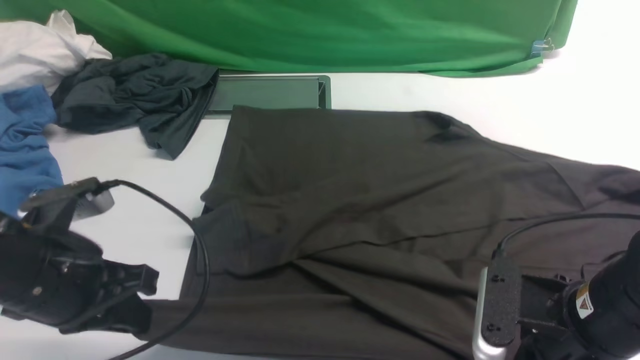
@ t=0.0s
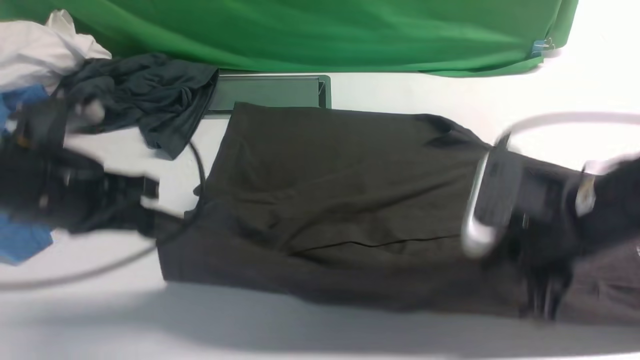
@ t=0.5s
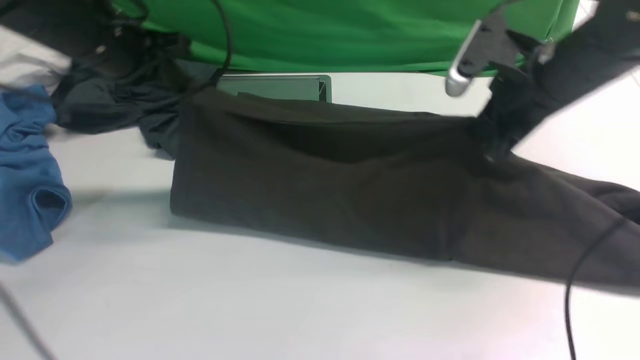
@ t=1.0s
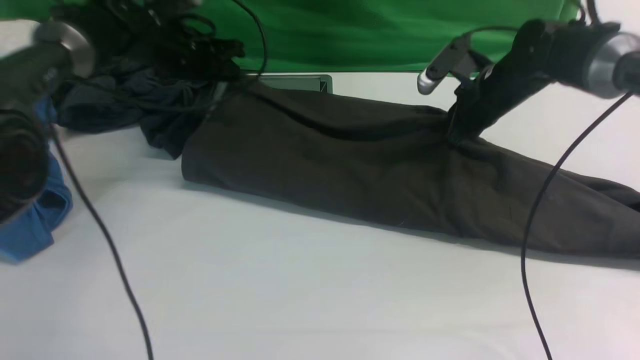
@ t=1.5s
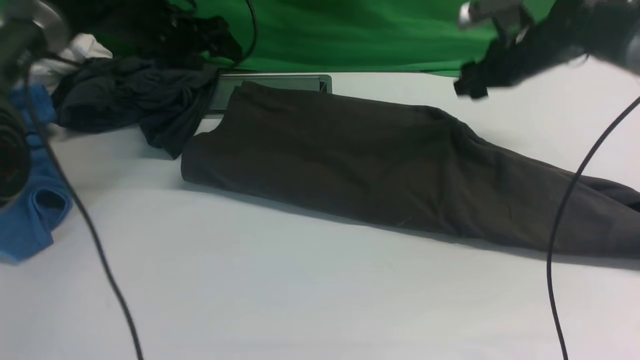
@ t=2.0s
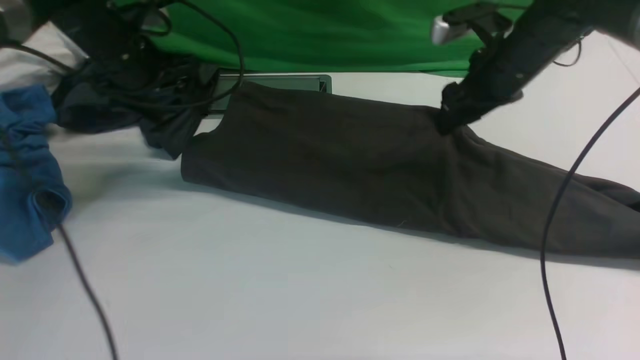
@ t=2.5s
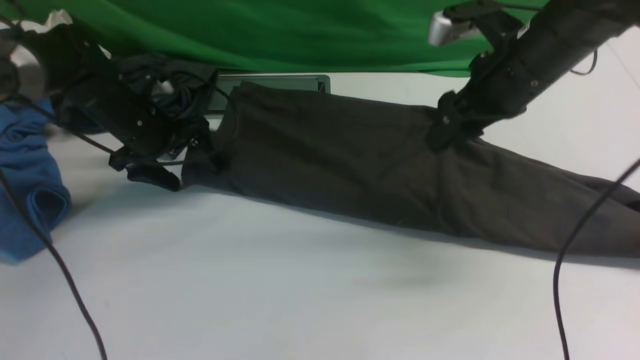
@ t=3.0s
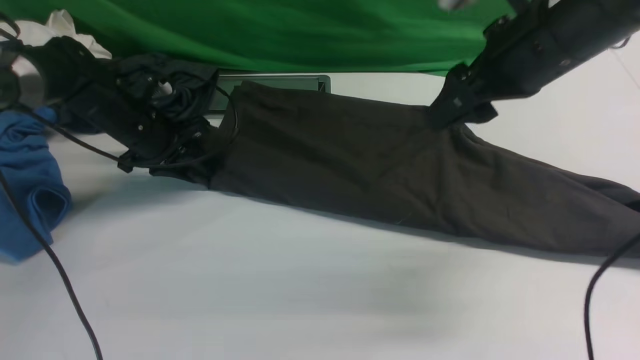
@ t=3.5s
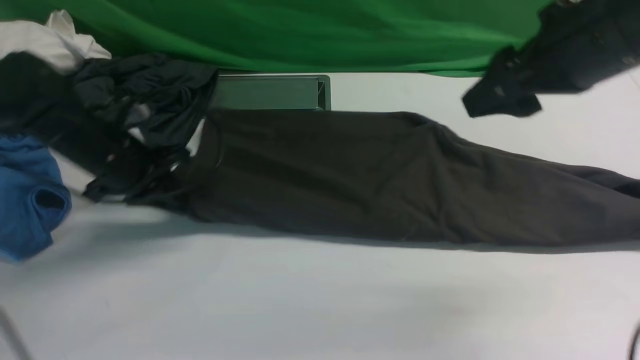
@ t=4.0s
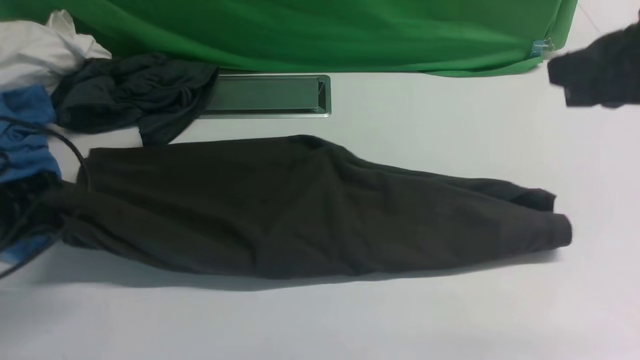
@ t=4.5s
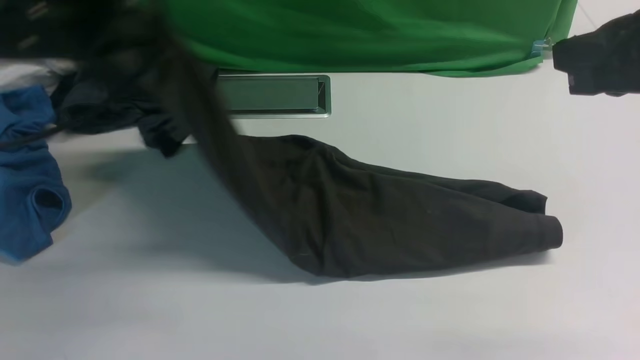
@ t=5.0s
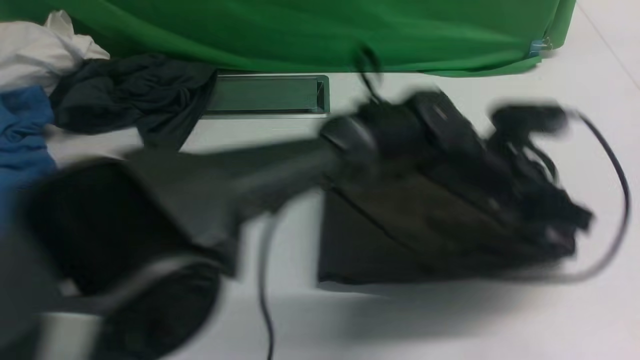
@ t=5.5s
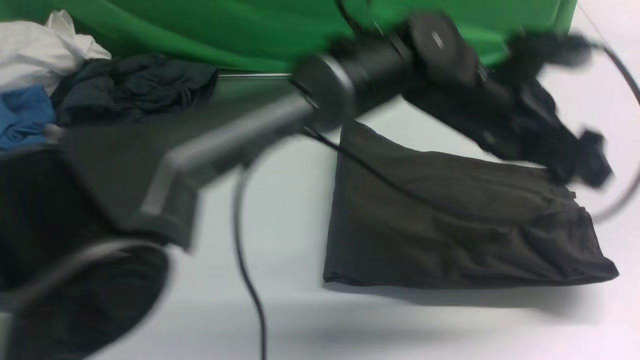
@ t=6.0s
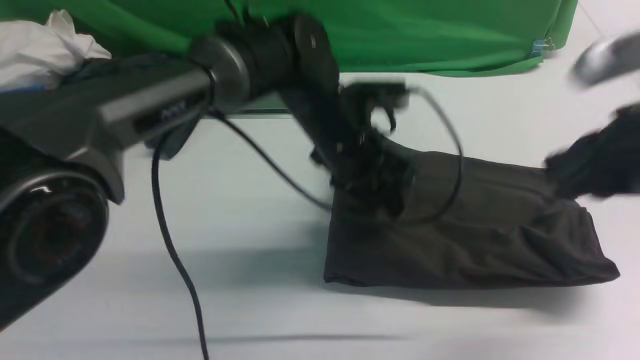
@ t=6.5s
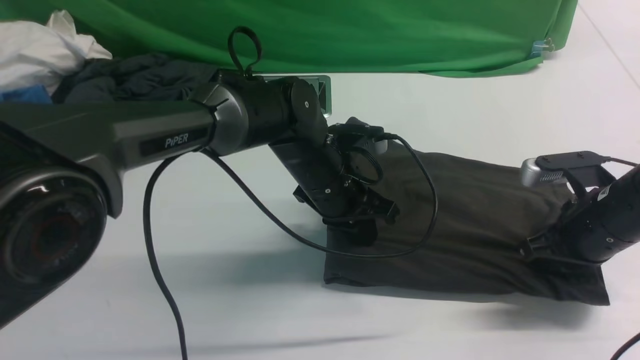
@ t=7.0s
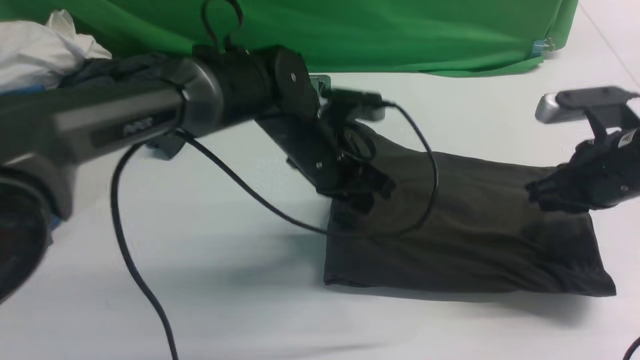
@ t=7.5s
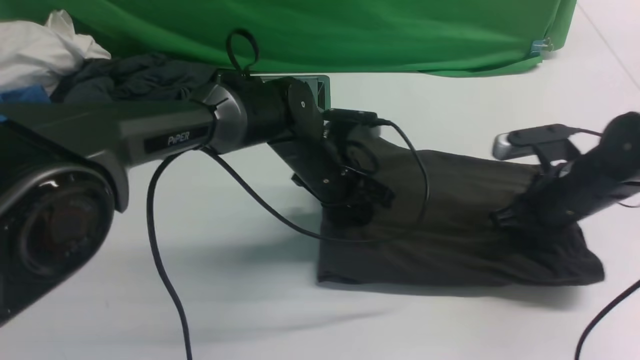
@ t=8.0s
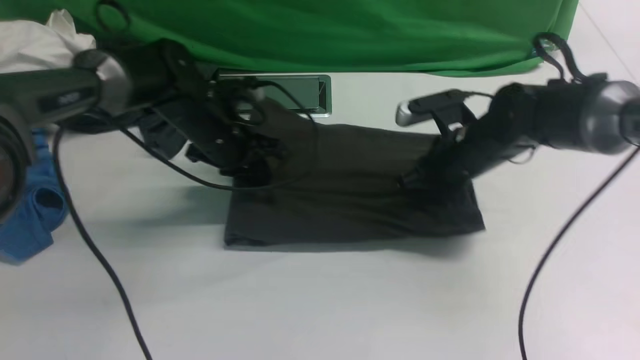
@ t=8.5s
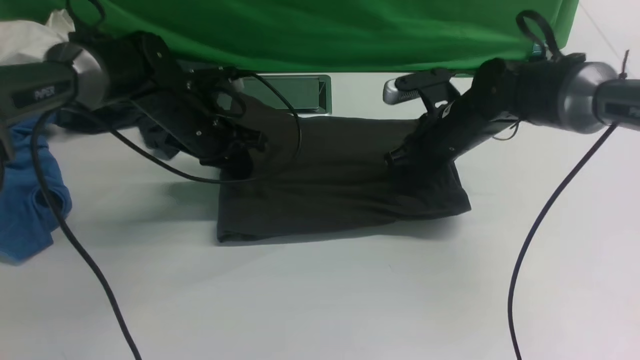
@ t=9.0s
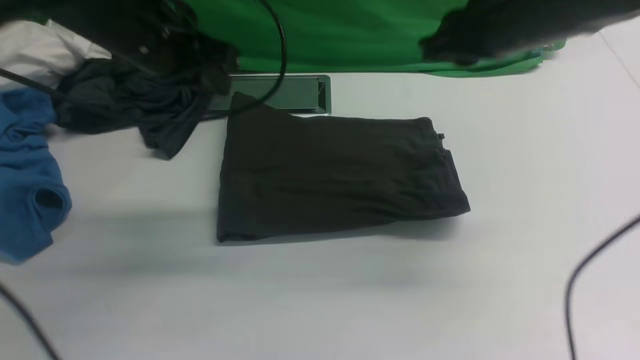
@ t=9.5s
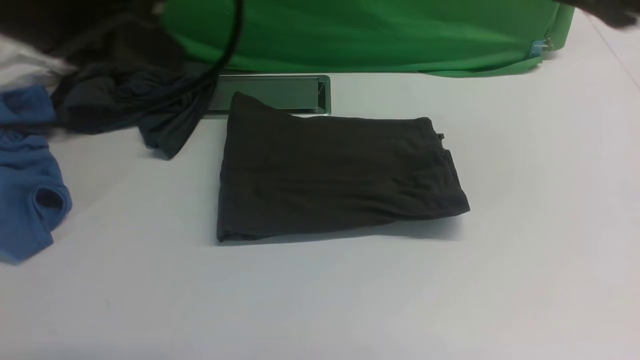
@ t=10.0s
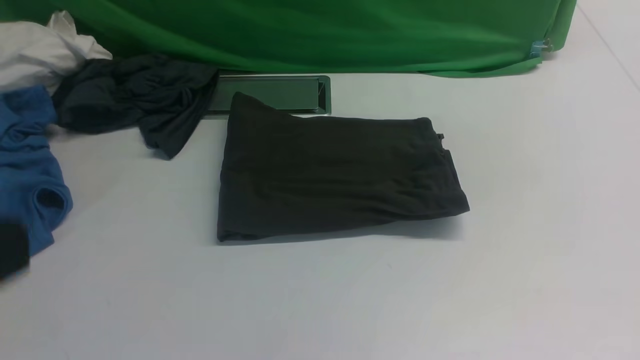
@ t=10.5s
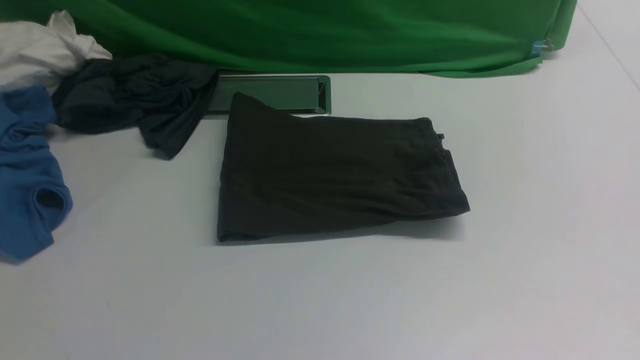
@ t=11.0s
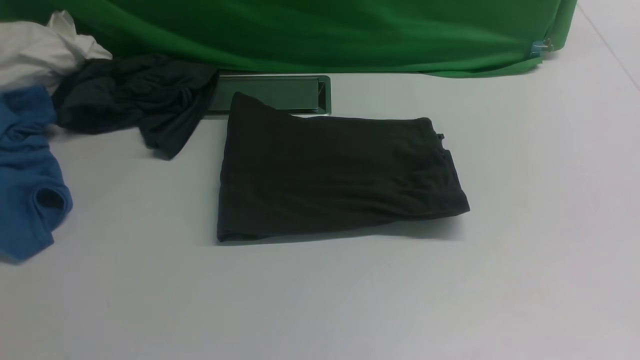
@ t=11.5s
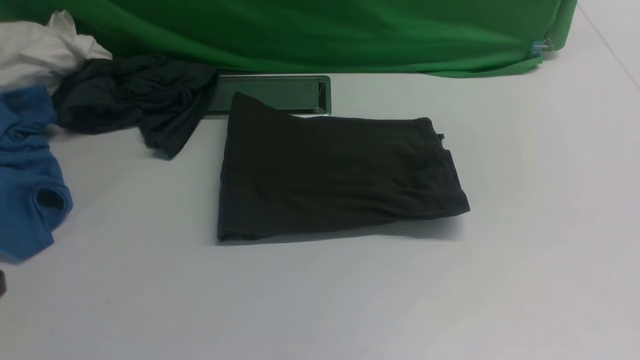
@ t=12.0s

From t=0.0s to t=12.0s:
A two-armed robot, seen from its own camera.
Step, from t=0.0s to t=2.0s: use both arms to drag the lower edge of the fabric forward and fold it over the upper edge.
Step, from t=2.5s to t=4.0s: Hold the left edge of the fabric with your left arm.
Step, from t=4.5s to t=5.5s: Drag the left edge of the fabric to the left with your left arm and fold it to the right edge.
From t=0.0s to t=2.0s: Both grippers move forward, approximately 30 cm. The right gripper opens, while the left gripper opens its fingers.
From t=2.0s to t=4.0s: The right gripper heads backward and upward, covering some 25 cm. The left gripper moves backward, approximately 15 cm, and closes up.
From t=4.0s to t=6.0s: The right gripper moves backward, upward and to the right, some 15 cm, and closes its fingers; the left gripper heads to the right, covering approximately 40 cm, and opens its fingers.
From t=6.0s to t=8.0s: The right gripper is displaced downward and forward by approximately 30 cm, while the left gripper shifts about 20 cm to the left and downward, and closes its fingers.
From t=8.0s to t=10.0s: The right gripper is displaced upward and backward by roughly 30 cm, while the left gripper travels upward, backward and to the left by about 35 cm.
From t=10.0s to t=12.0s: Both grippers travel together backward and downward, roughly 20 cm.

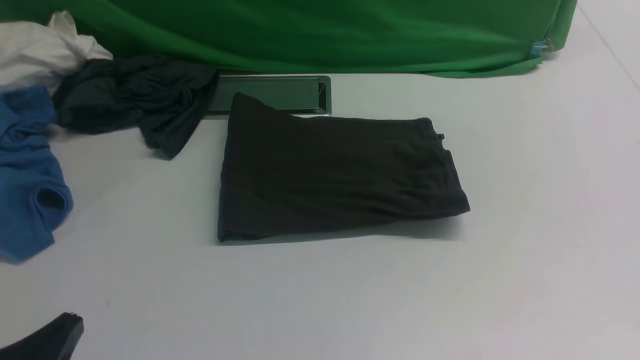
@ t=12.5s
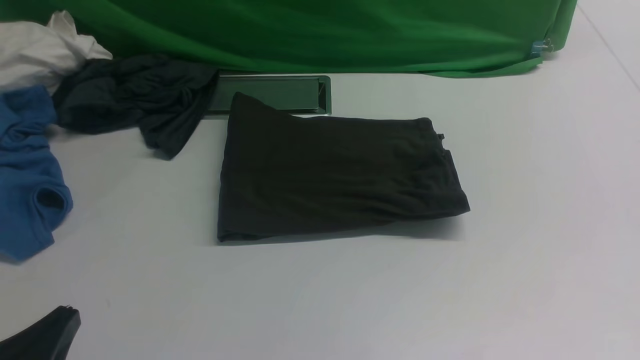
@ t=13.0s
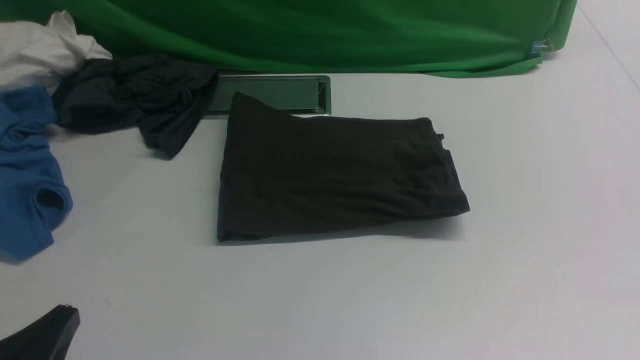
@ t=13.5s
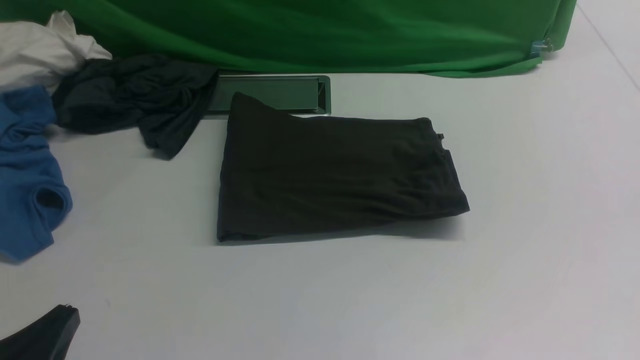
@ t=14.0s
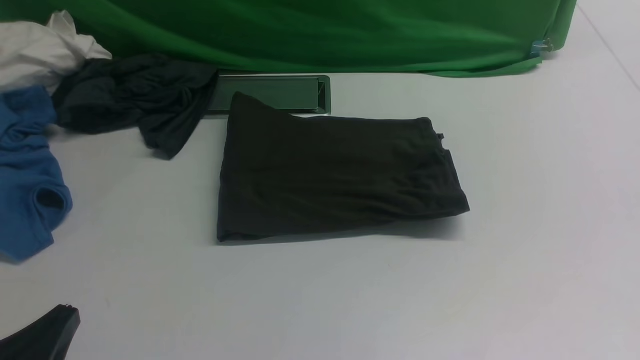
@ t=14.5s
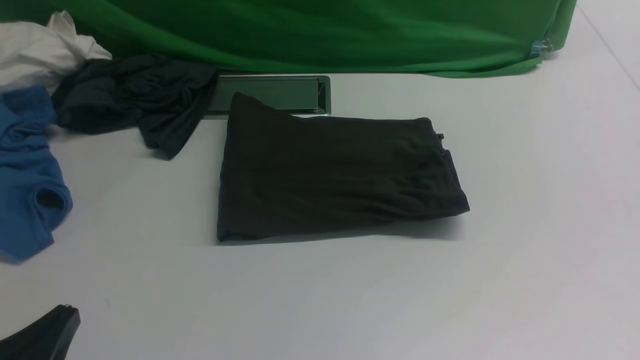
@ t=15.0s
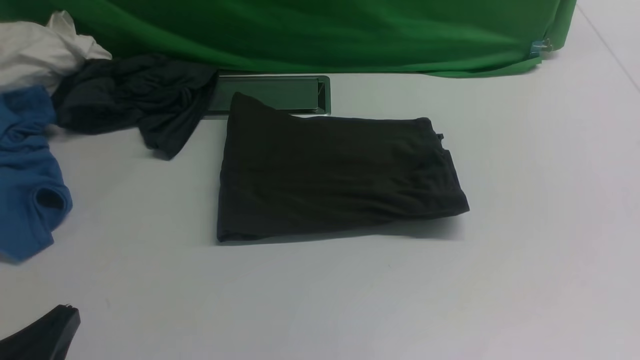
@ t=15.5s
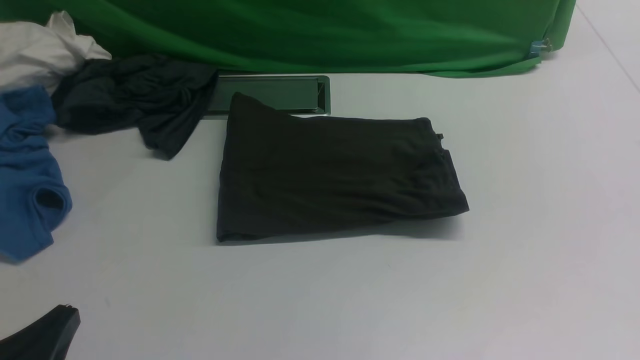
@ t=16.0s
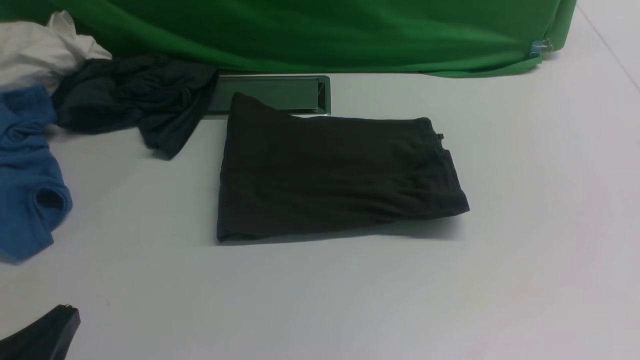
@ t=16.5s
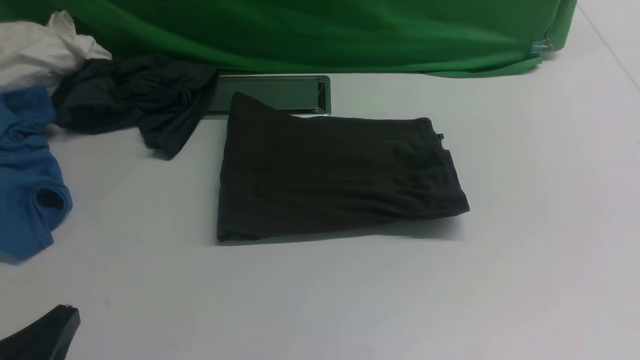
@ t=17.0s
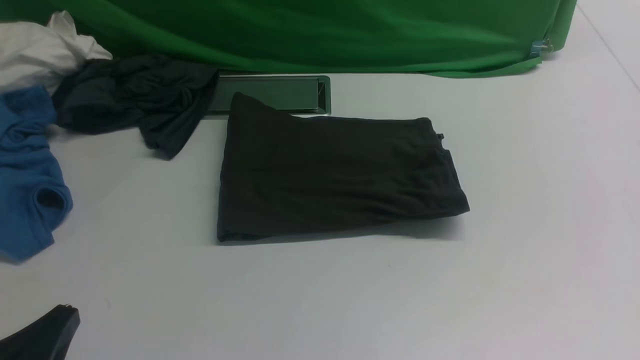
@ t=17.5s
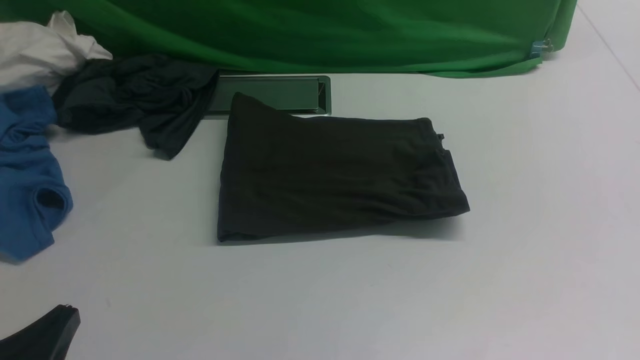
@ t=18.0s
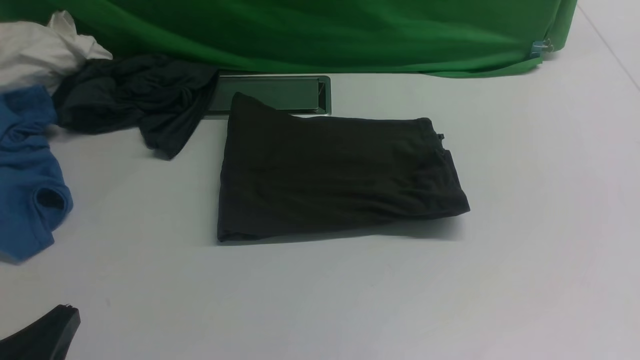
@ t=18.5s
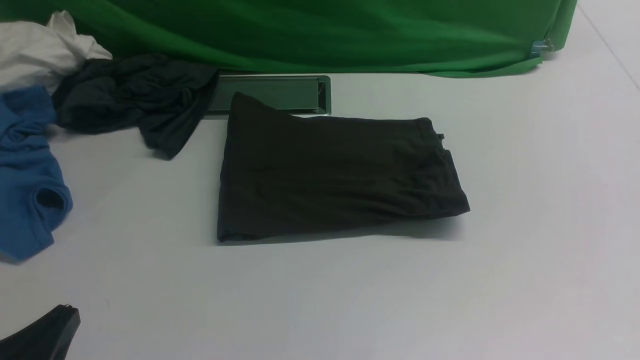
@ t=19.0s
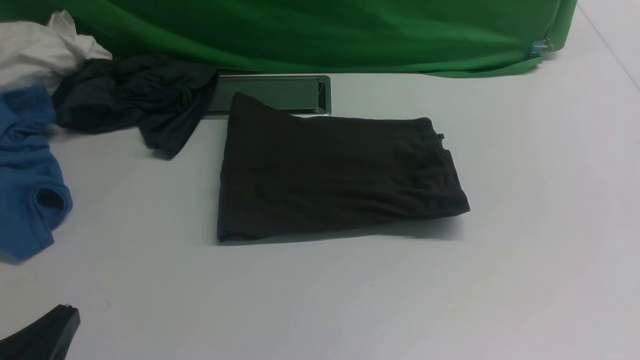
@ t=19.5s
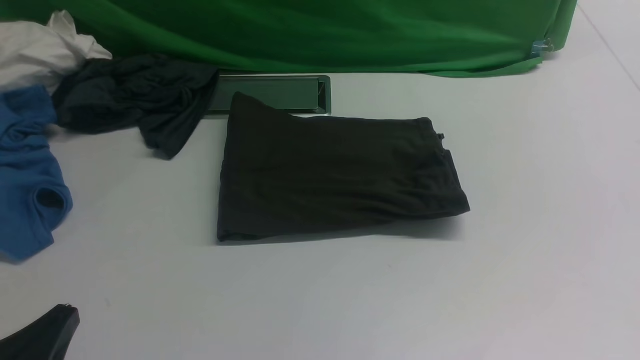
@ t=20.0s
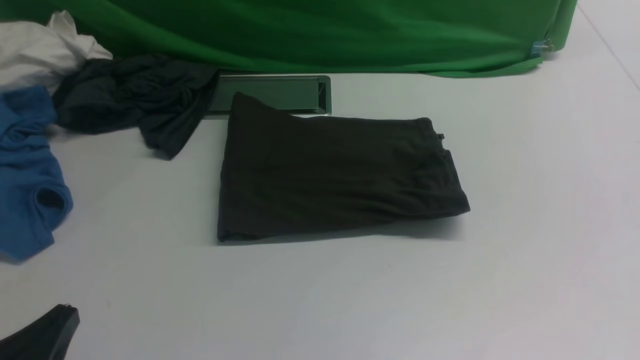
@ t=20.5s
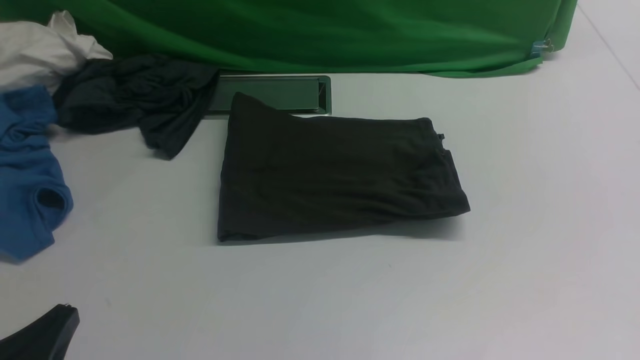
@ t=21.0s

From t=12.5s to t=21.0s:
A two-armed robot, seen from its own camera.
From t=19.0s to t=21.0s: Both grippers stay about where they are.
